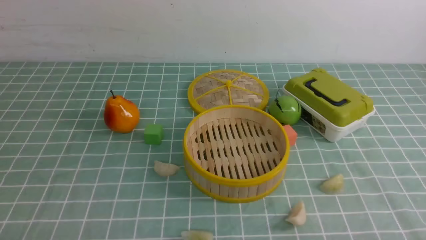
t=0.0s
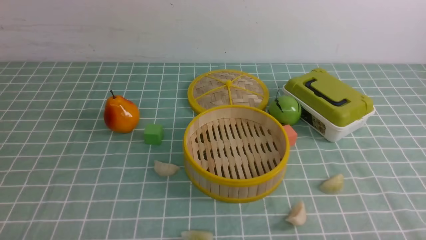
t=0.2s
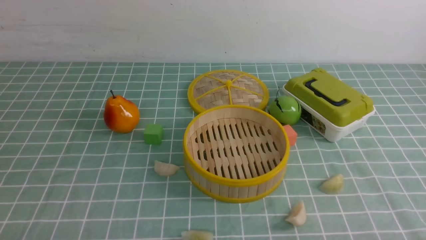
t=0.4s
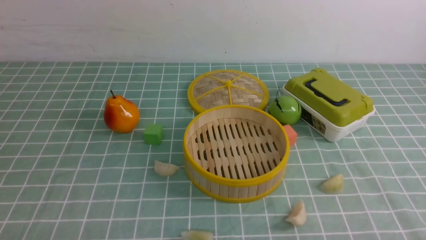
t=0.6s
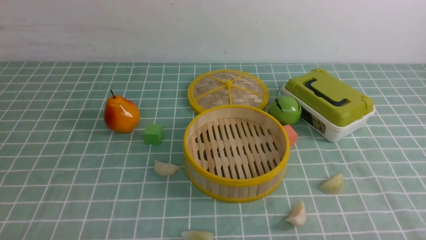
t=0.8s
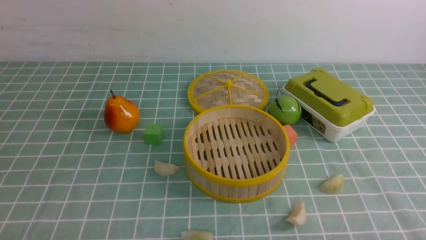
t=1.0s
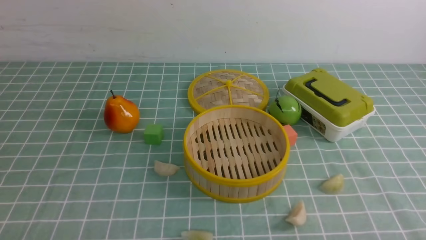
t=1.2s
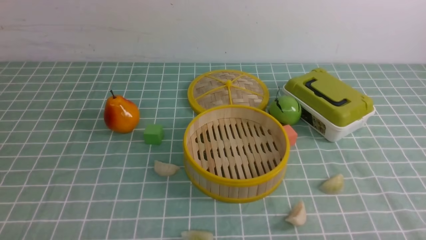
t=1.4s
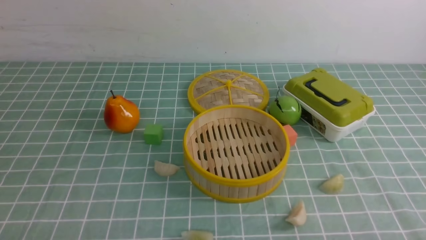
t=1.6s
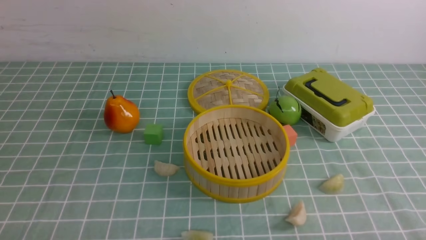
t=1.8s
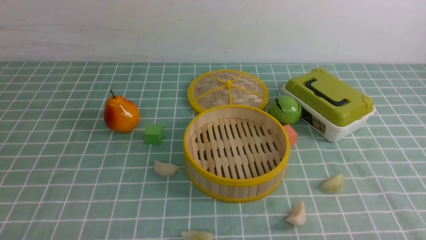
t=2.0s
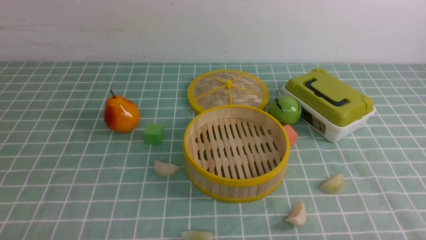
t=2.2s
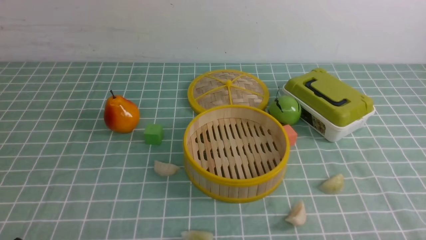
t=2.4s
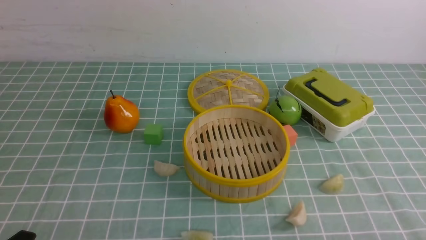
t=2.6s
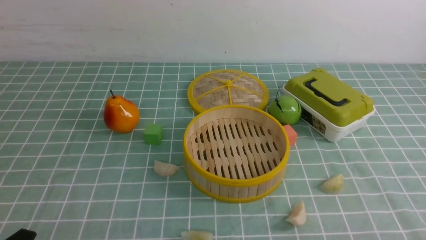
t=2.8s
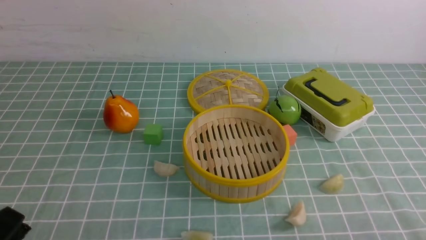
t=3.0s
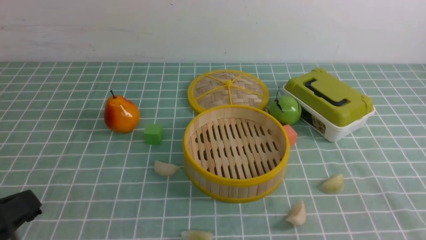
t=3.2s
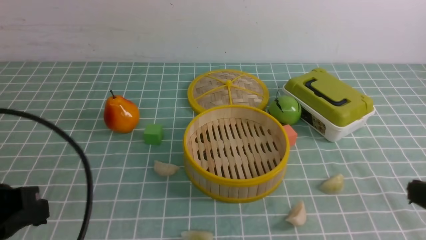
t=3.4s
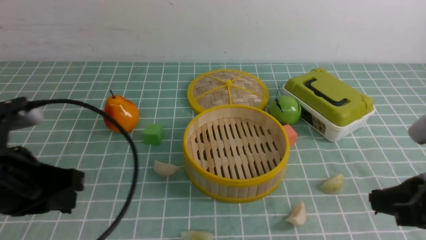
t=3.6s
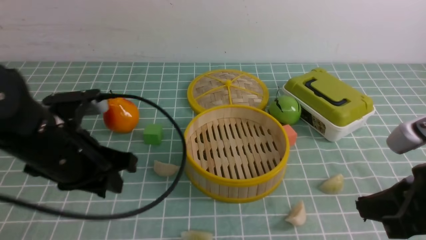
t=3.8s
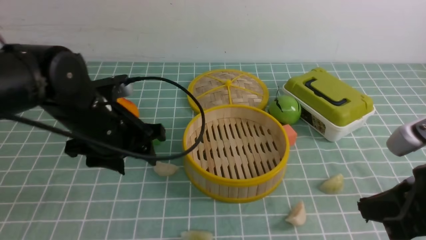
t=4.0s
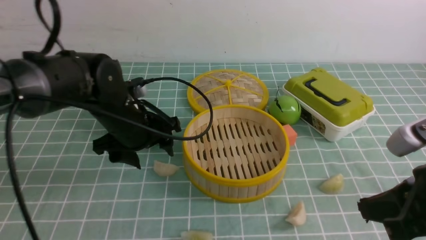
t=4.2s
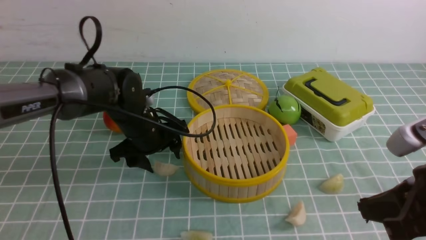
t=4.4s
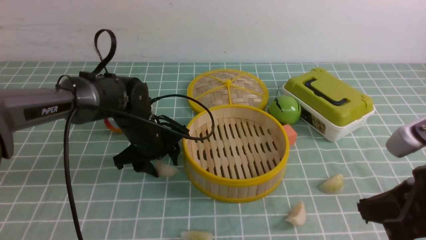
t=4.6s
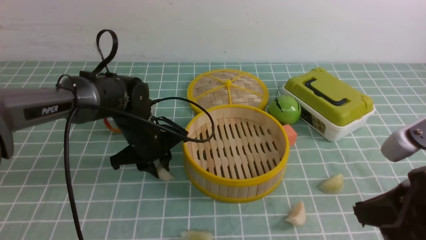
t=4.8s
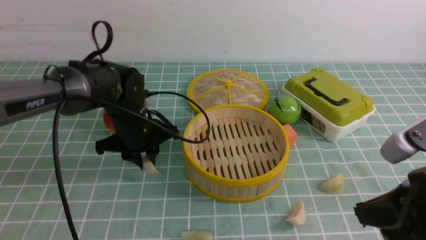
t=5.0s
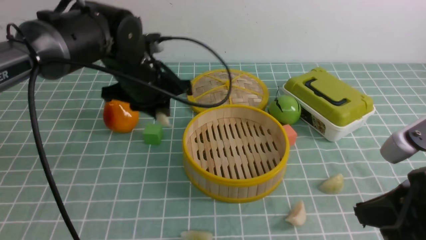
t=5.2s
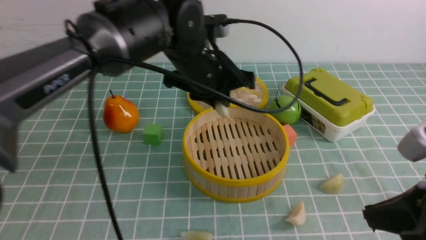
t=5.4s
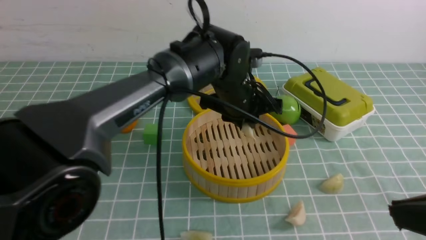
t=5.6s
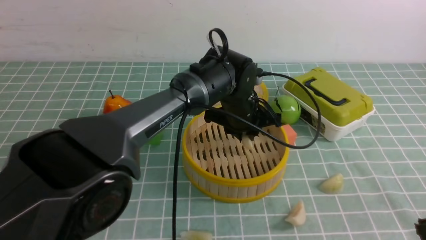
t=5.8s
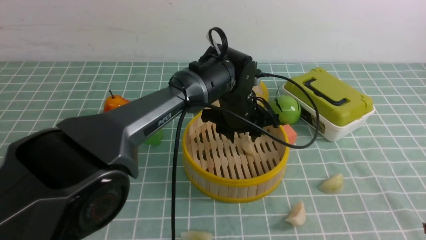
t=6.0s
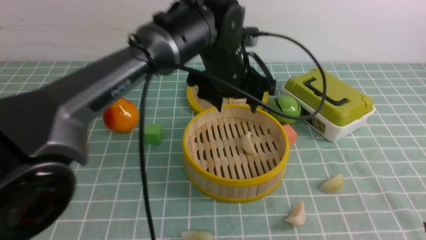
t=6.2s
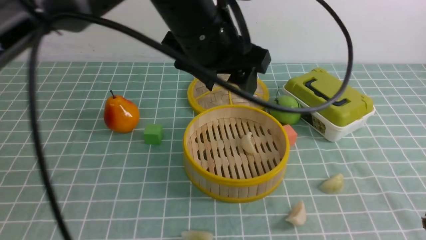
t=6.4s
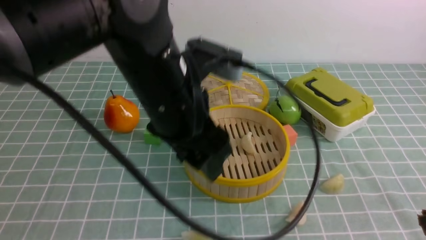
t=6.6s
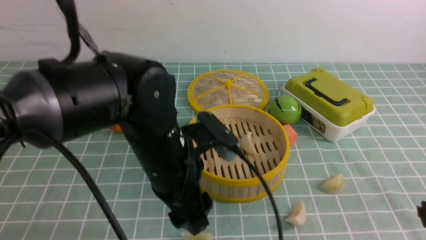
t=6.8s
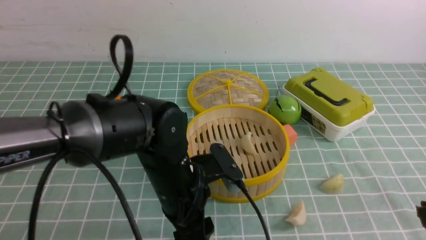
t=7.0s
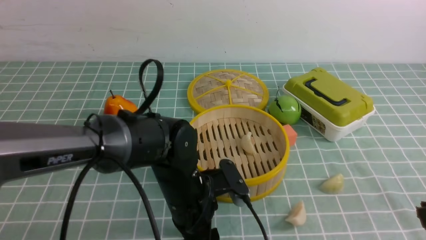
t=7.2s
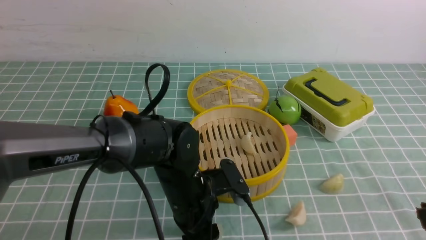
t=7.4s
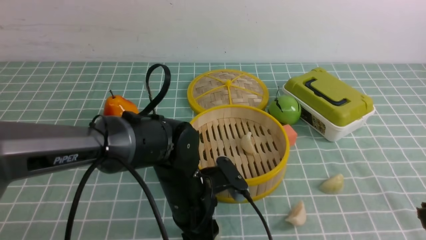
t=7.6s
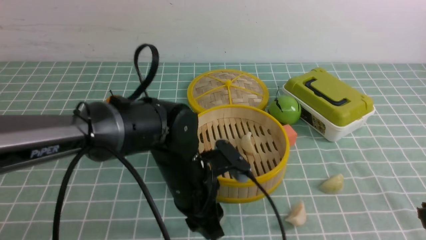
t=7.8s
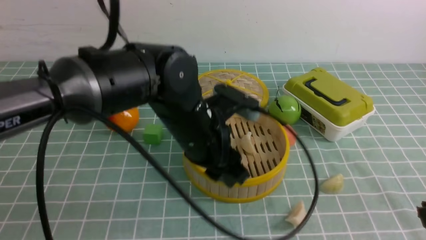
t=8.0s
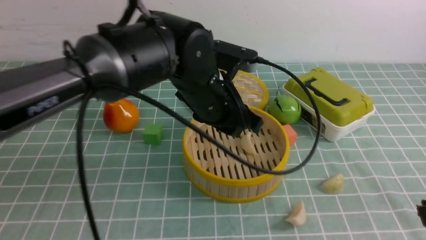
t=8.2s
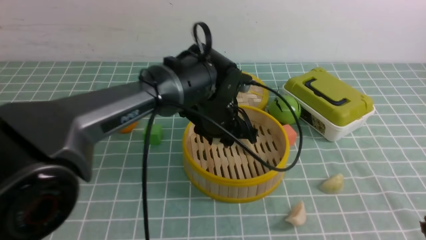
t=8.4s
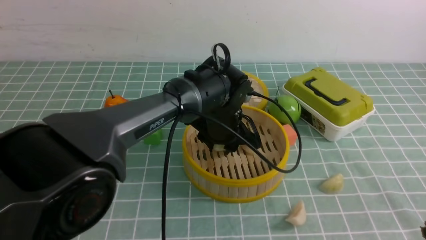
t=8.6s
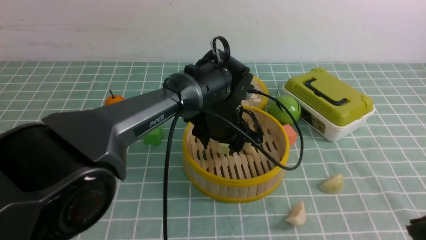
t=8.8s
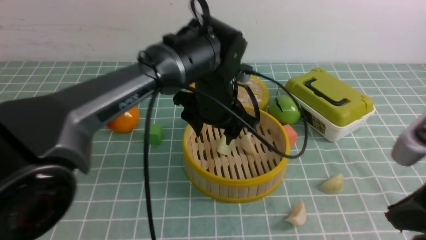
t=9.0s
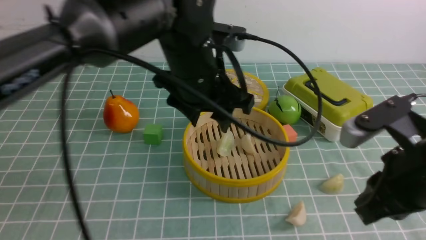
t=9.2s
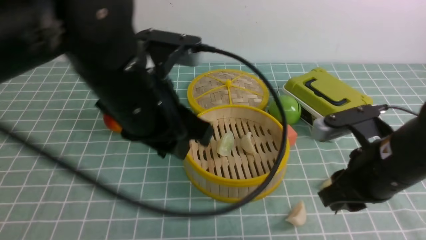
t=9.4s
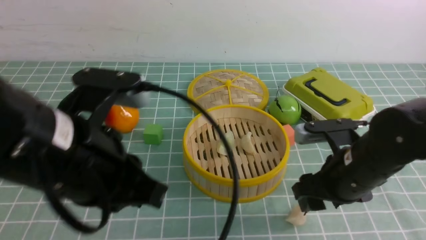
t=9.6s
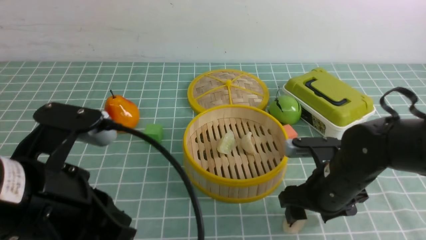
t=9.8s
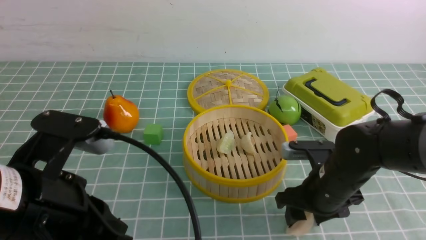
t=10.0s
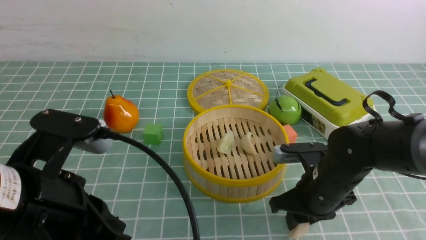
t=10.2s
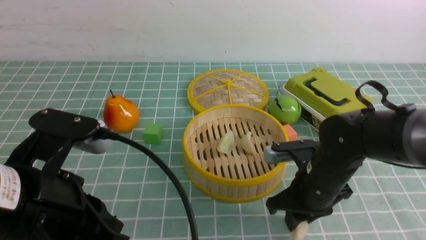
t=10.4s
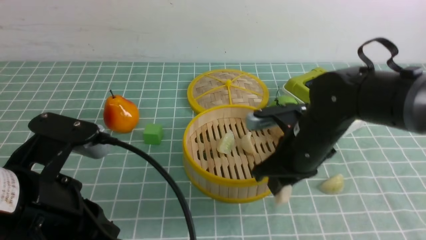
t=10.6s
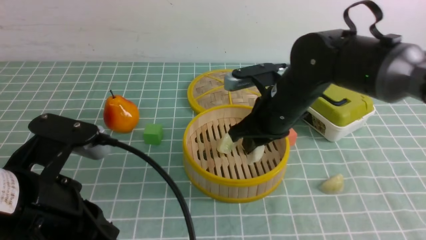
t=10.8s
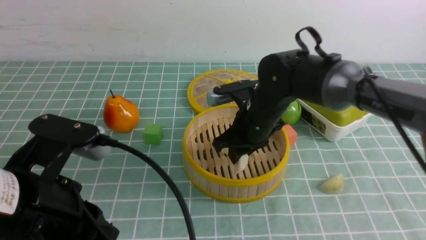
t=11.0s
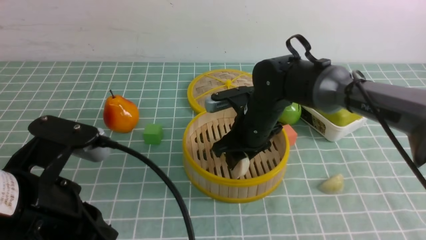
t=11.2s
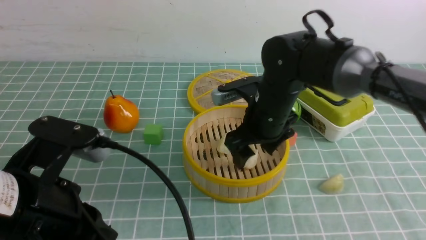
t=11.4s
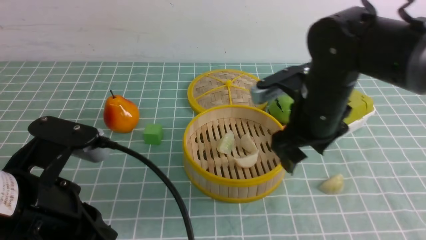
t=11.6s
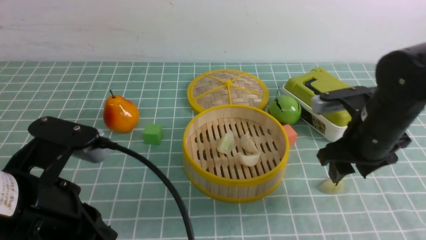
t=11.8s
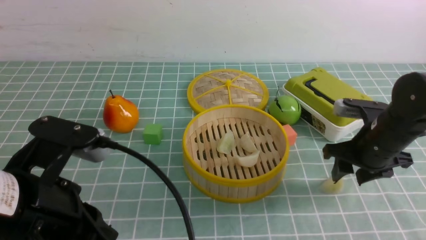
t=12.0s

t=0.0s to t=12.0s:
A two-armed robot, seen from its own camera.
Task of the whole recording: put the dumplings into the steamer on the table with the blue tablecloth.
Step, t=0.0s to t=4.8s: use the left arm to grab a dumpling.
Step, t=5.0s to t=6.0s: use the left arm to put the dumpling into the steamer.
Step, t=6.2s to t=8.0s: use the left arm to grab a dumpling.
Step, t=8.2s to t=9.0s: use the left arm to put the dumpling into the steamer.
Step, t=9.4s to t=10.4s: use the right arm to grab a dumpling.
Step, t=10.8s to t=11.4s: use the right arm to put the dumpling into the steamer.
t=0.0s to t=1.6s: Neither gripper changes place.
t=1.6s to t=3.0s: The left gripper shifts some 10 cm upward.
t=3.0s to t=4.4s: The left gripper travels forward by roughly 35 cm, and opens, while the right gripper goes about 15 cm forward and upward.
t=4.4s to t=6.0s: The left gripper travels to the right by roughly 15 cm, and closes, then opens again. The right gripper travels backward and upward by some 10 cm.
t=6.0s to t=7.6s: The left gripper is displaced backward, downward and to the left by approximately 15 cm.
t=7.6s to t=9.0s: The left gripper moves upward and forward, some 15 cm, while the right gripper moves forward, roughly 5 cm.
t=9.0s to t=10.4s: The left gripper moves backward and to the left, approximately 30 cm, and closes up. The right gripper goes approximately 20 cm forward, downward and to the left, and opens, then closes once more.
t=10.4s to t=12.0s: The right gripper goes about 10 cm to the right, and opens its fingers.

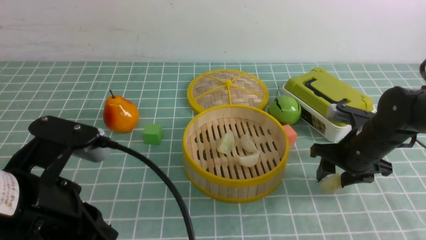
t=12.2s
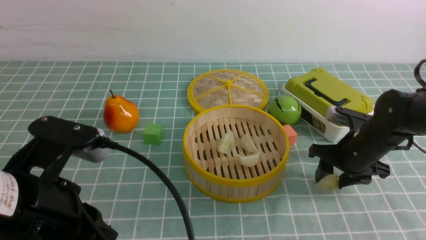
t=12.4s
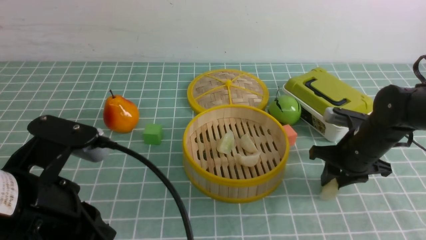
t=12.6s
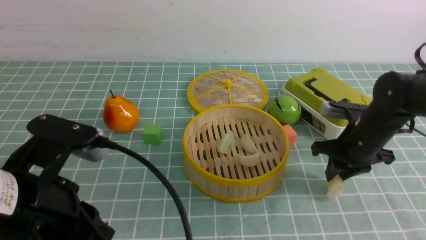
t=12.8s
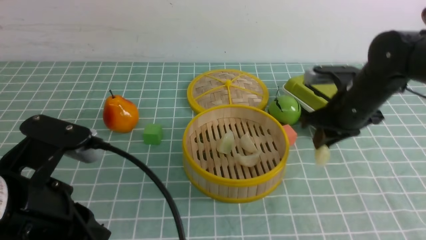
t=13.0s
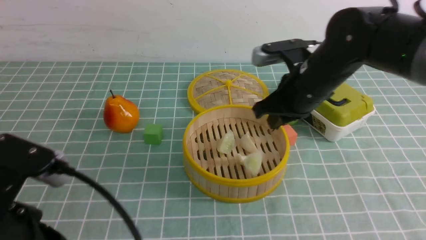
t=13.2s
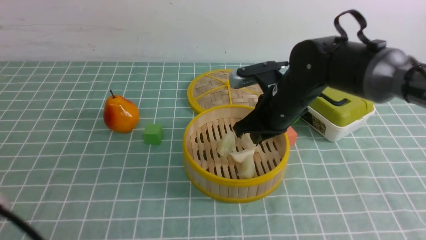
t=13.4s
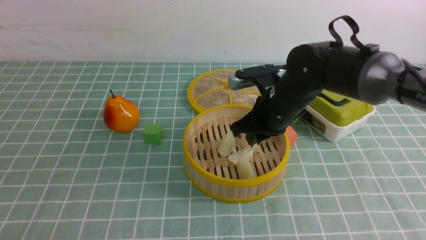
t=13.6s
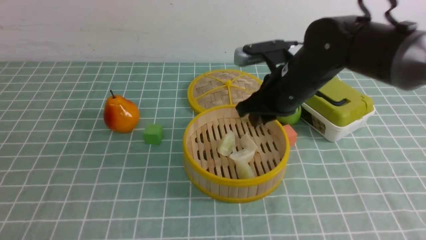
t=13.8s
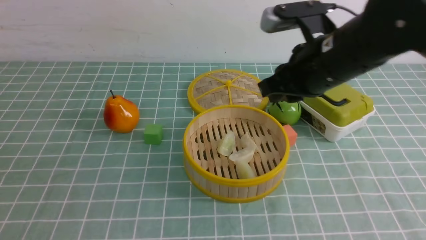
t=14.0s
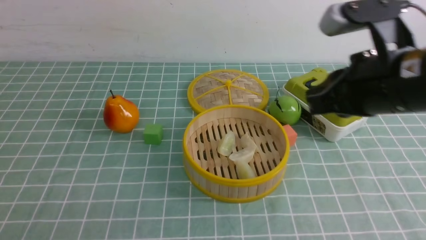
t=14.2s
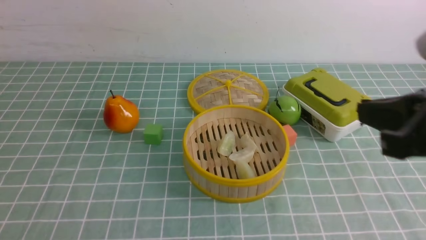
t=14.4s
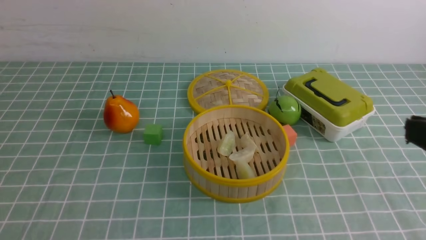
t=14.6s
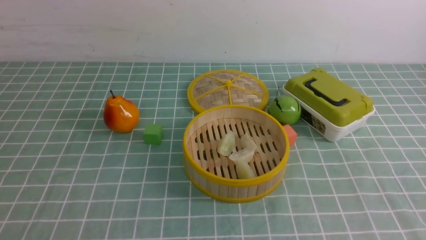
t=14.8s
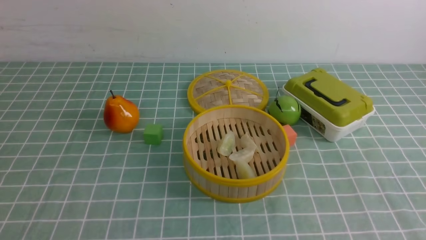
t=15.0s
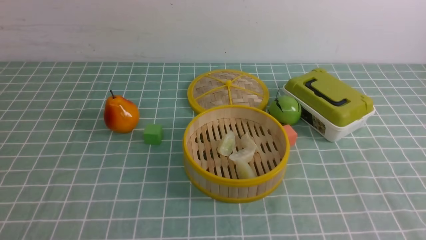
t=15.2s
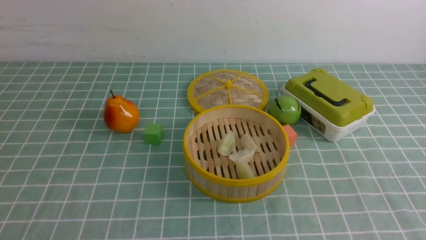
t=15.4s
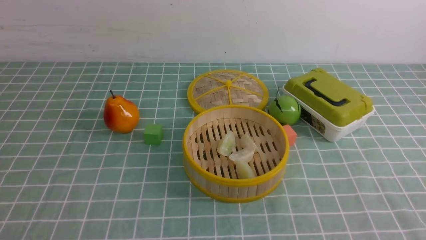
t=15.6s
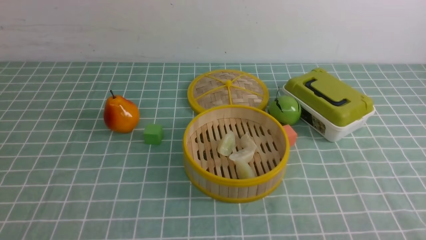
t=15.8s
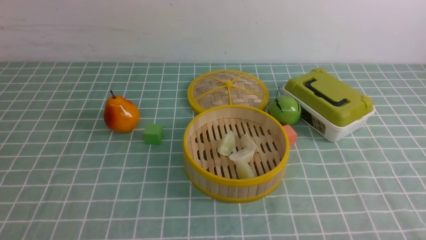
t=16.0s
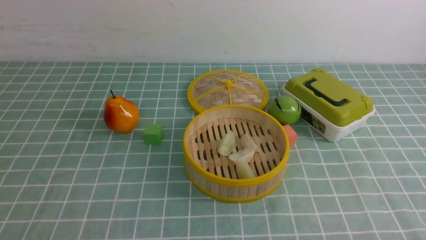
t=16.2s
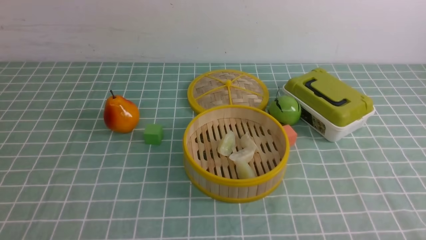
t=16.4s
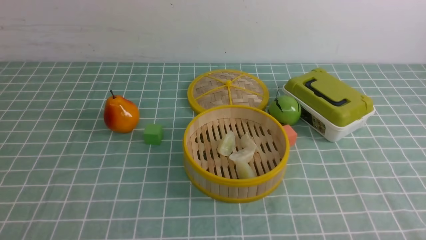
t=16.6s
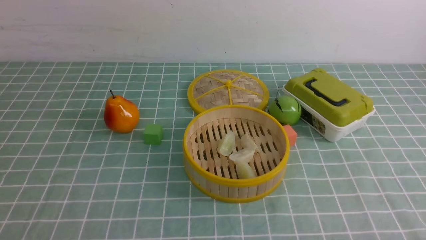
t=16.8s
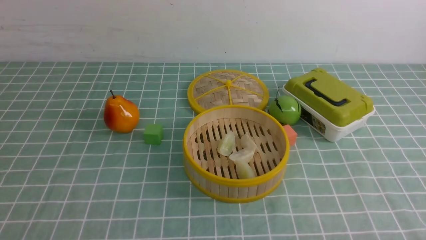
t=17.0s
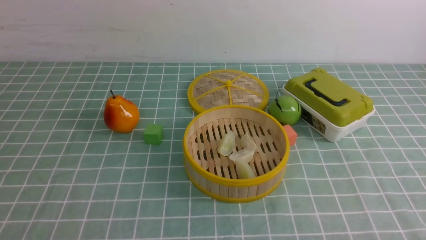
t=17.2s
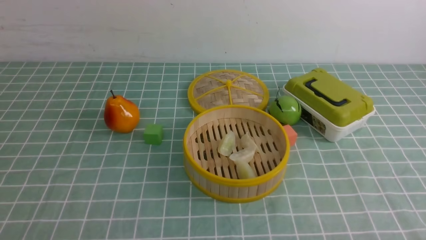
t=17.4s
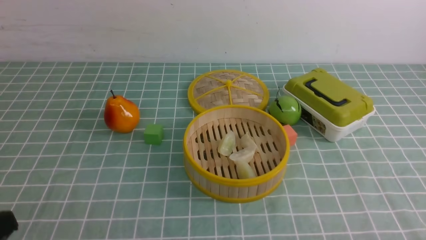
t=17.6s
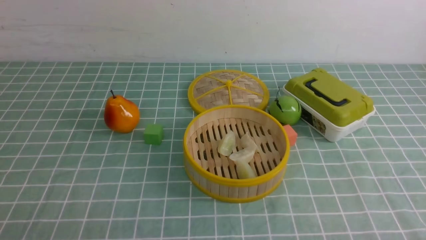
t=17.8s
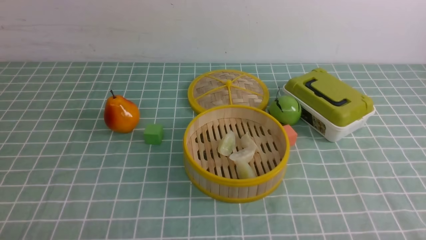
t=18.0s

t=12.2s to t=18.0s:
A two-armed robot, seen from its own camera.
Task of the whole recording: put the dumplings into the steamer on the table with the blue tablecloth.
t=12.2s to t=13.6s: The left gripper is displaced backward and to the left by approximately 10 cm, while the right gripper is displaced to the left and upward by approximately 15 cm, and closes.
t=13.6s to t=15.0s: The right gripper travels backward and to the right by approximately 35 cm.
